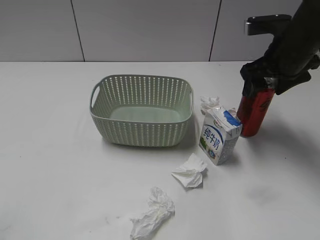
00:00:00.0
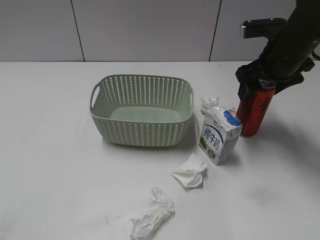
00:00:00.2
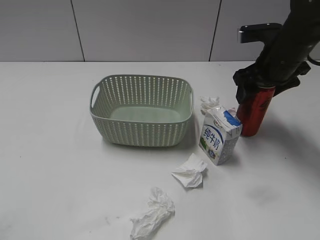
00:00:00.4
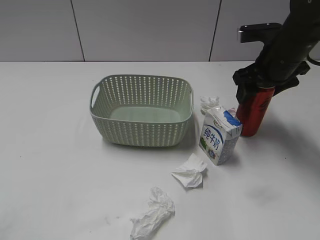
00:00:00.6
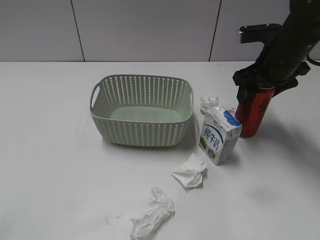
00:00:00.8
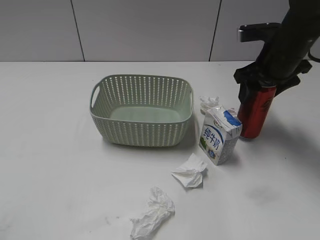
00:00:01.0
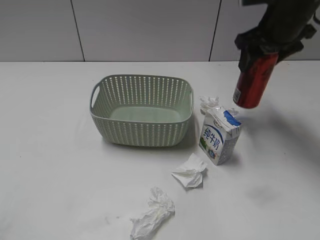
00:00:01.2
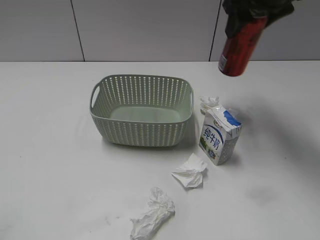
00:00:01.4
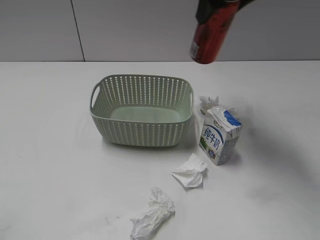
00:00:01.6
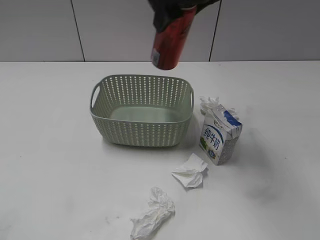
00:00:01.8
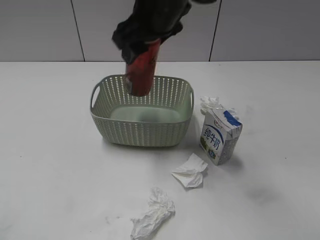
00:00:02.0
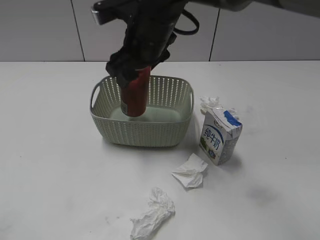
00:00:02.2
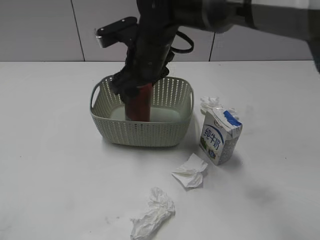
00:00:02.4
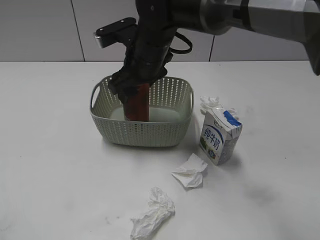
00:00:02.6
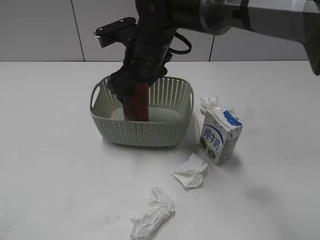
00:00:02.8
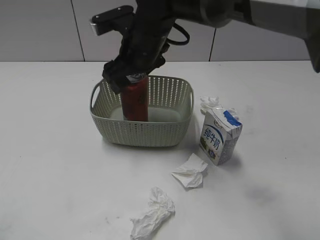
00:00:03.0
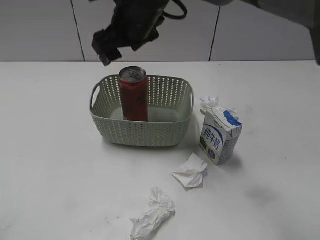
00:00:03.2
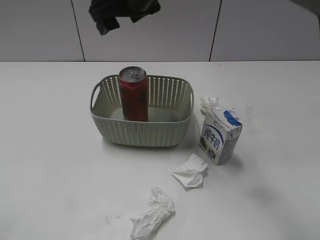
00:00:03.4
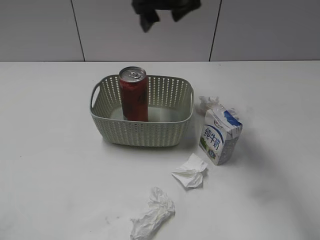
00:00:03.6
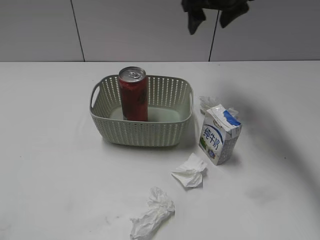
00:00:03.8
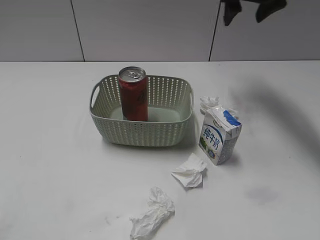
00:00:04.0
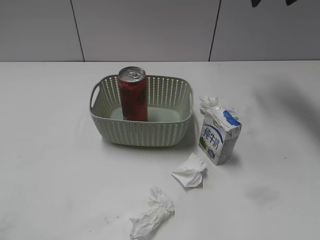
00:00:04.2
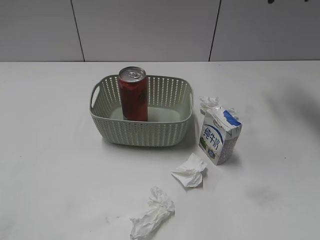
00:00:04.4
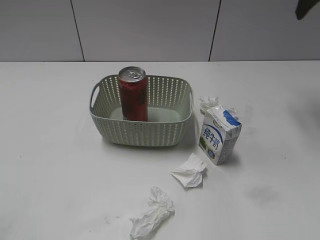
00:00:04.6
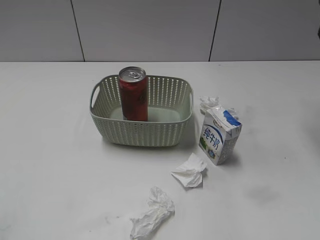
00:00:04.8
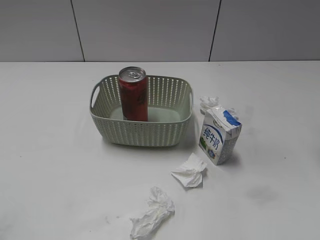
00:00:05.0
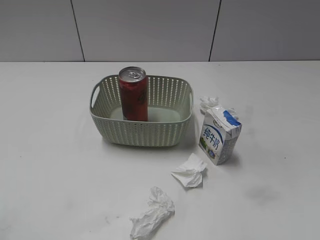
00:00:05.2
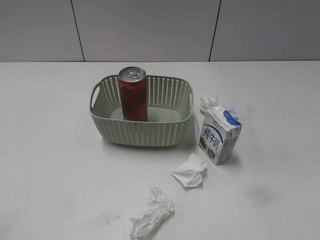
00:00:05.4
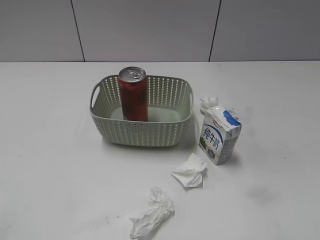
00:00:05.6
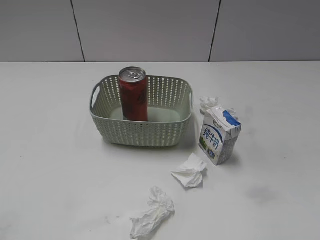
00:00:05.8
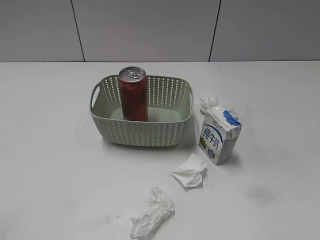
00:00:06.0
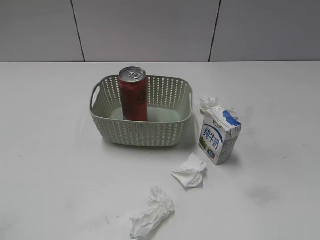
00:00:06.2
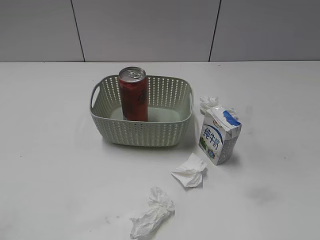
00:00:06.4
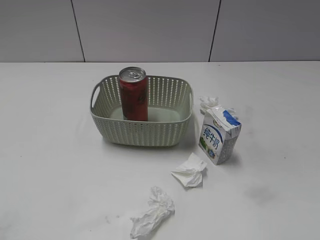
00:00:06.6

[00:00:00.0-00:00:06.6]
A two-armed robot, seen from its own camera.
Step, 00:00:00.8 to 00:00:03.2: Place the cola can in the basket with right gripper.
00:00:00.0 to 00:00:01.6: The right gripper moves upward and to the left, approximately 15 cm, and closes its fingers.
00:00:01.6 to 00:00:03.2: The right gripper travels to the left and downward by some 15 cm, and opens up.
00:00:03.2 to 00:00:05.0: The right gripper moves to the right, about 35 cm, and closes up.

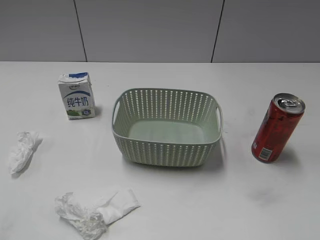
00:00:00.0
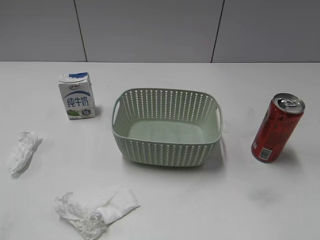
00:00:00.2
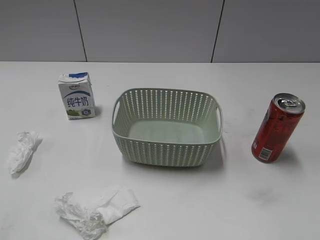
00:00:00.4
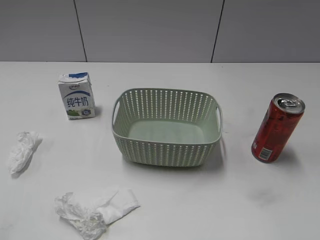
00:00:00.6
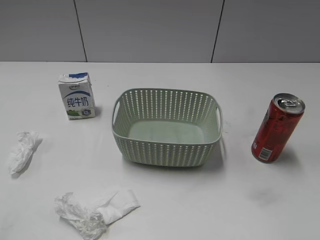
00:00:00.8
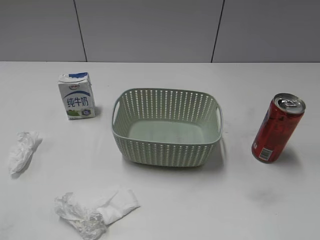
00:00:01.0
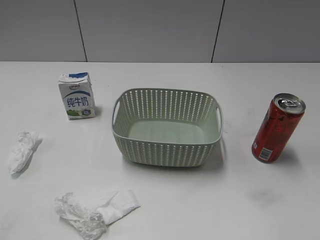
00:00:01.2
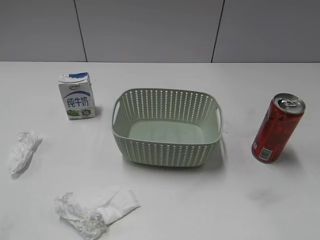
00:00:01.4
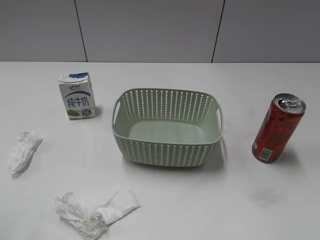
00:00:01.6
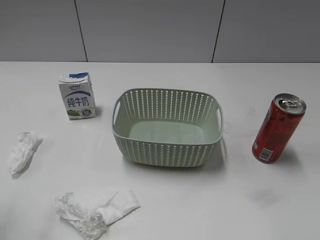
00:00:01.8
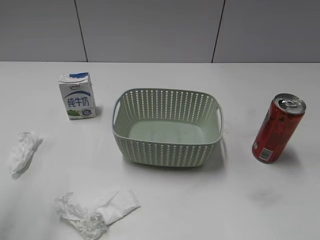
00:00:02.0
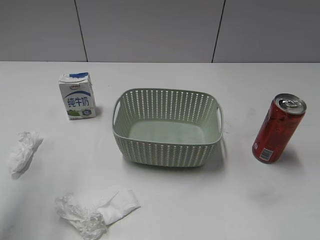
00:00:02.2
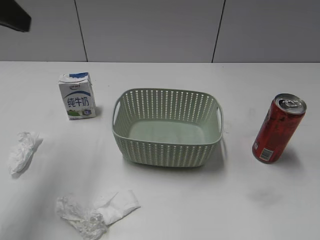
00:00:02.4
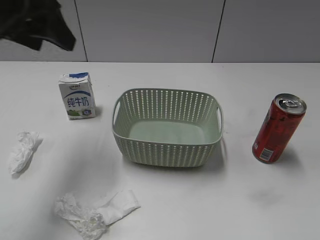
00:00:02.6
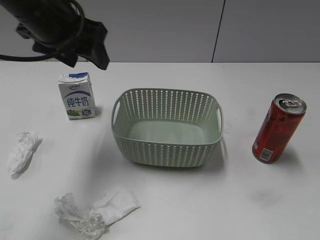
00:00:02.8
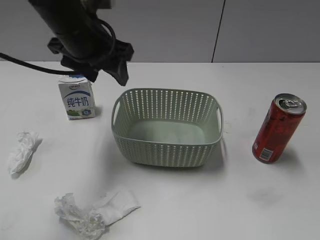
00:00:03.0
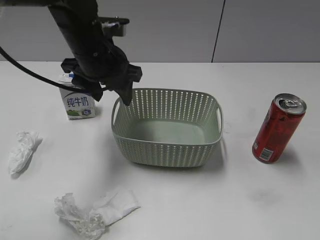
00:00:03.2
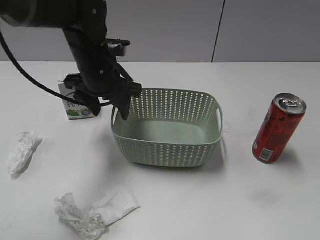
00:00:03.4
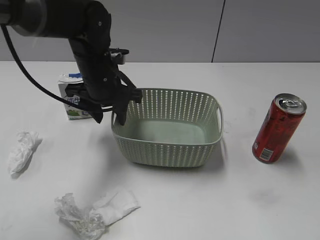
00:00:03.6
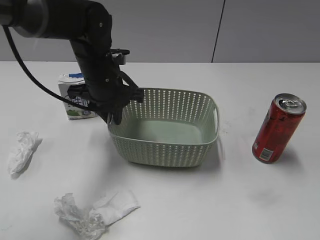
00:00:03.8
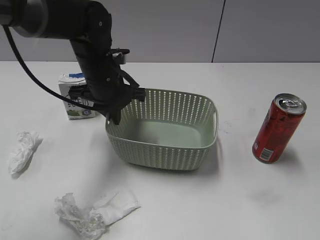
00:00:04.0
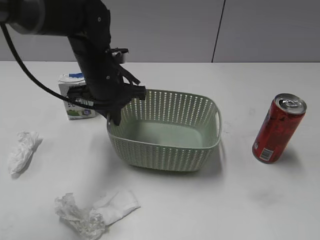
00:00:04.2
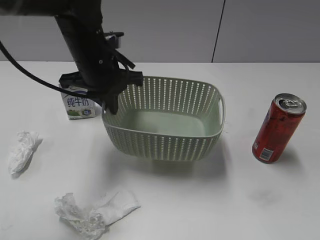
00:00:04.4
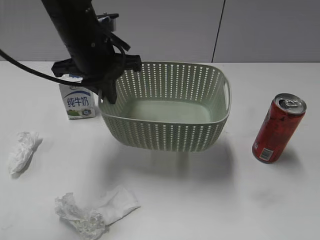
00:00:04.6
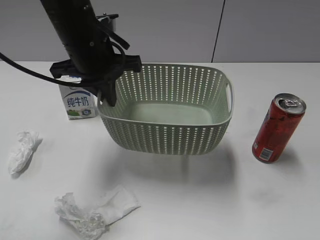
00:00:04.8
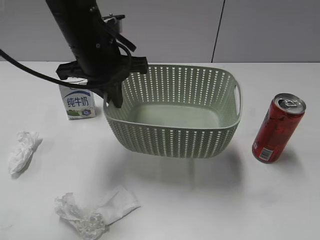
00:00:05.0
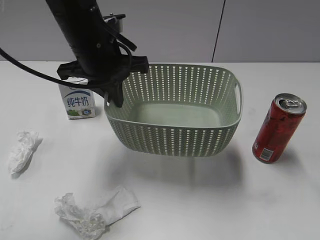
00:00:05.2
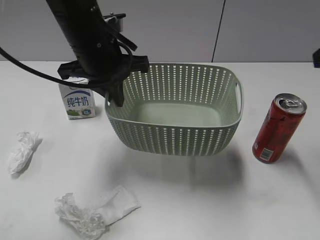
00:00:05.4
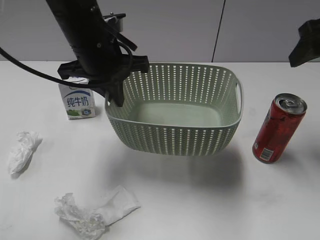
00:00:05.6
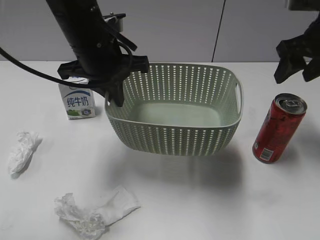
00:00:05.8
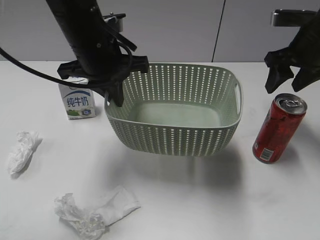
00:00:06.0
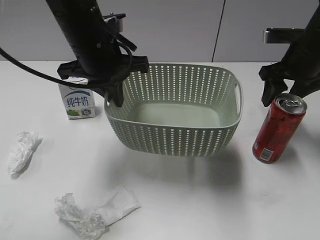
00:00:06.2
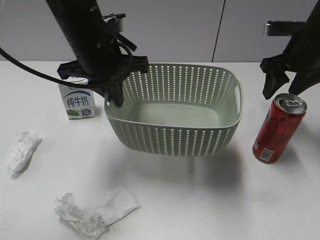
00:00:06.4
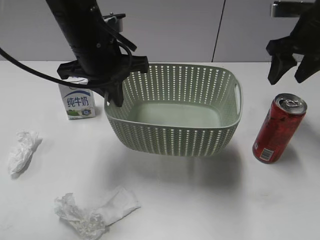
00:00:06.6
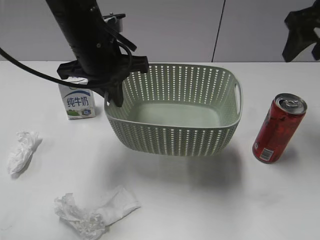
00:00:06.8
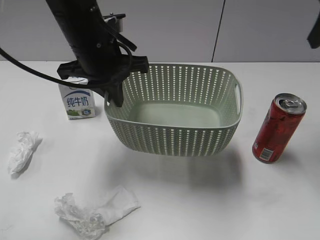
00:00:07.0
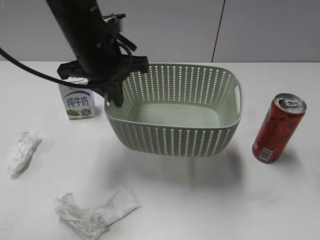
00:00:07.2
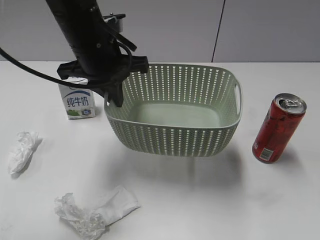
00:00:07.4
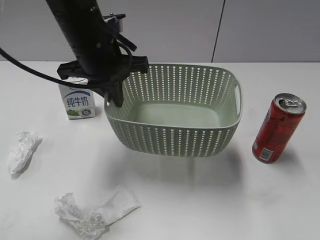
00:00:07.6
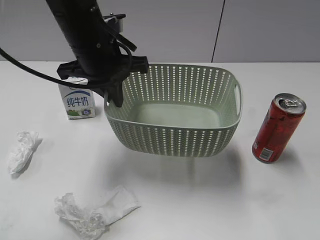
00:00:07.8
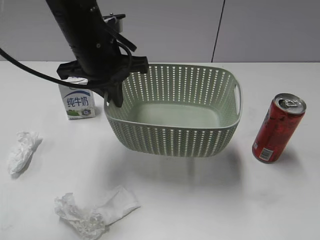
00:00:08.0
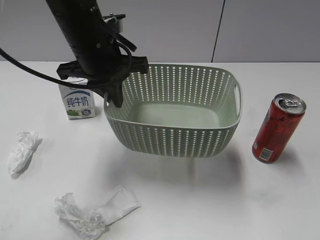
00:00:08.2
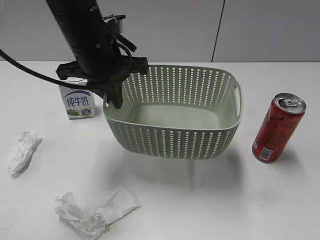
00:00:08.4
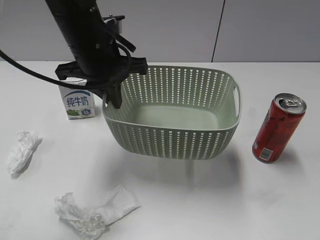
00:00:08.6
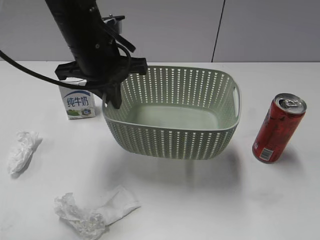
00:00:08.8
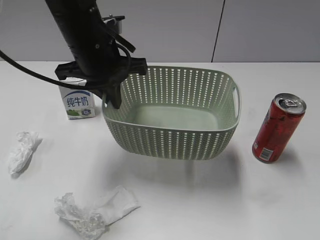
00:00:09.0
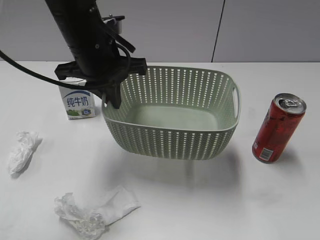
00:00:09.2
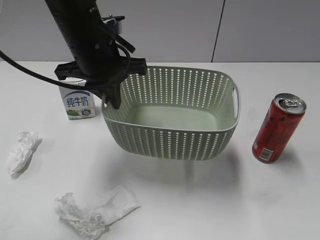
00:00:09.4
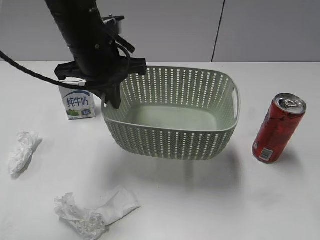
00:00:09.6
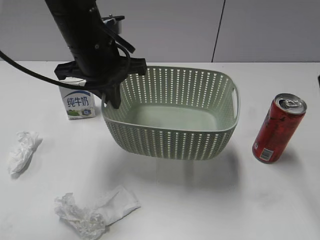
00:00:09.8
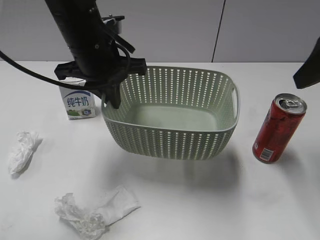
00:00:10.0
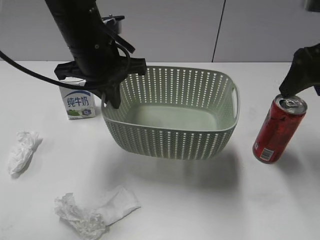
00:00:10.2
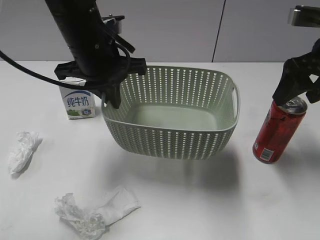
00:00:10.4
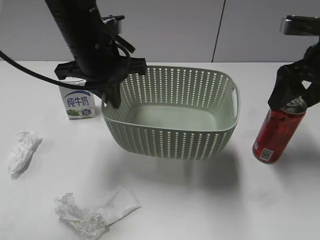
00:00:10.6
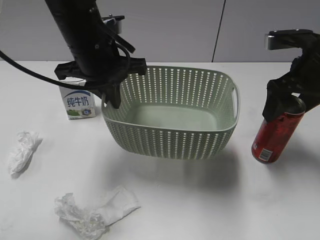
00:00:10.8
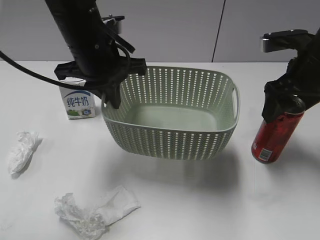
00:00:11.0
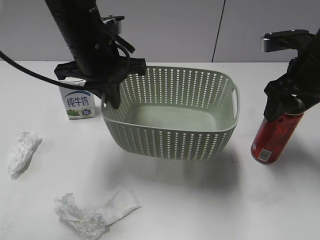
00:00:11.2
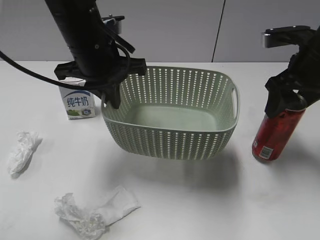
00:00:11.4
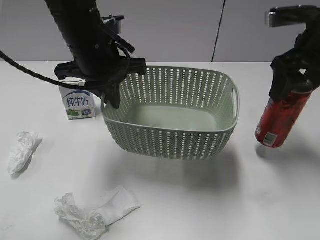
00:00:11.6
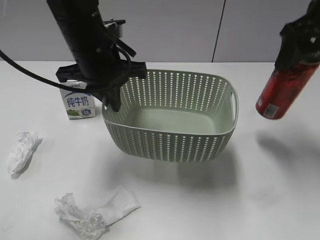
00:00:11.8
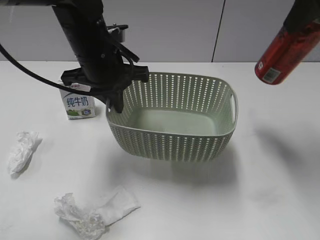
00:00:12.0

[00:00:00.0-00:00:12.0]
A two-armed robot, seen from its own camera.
Step, 00:00:02.4 to 00:00:04.0: Grasp the basket with left gripper.
Step, 00:00:04.2 to 00:00:05.2: Lift the basket with left gripper.
Step, 00:00:05.4 to 00:00:11.2: Grasp the cola can with right gripper.
00:00:01.6 to 00:00:03.0: The left gripper heads forward and to the right, covering roughly 35 cm.
00:00:03.0 to 00:00:04.4: The left gripper heads downward, covering some 5 cm, and closes.
00:00:04.4 to 00:00:06.0: The right gripper shifts some 40 cm forward, and closes up.
00:00:06.0 to 00:00:07.6: The right gripper travels backward by some 25 cm.
00:00:07.6 to 00:00:09.0: The right gripper shifts approximately 10 cm backward, and opens.
00:00:09.0 to 00:00:10.4: The right gripper heads forward, covering some 30 cm, and opens up.
00:00:10.4 to 00:00:12.0: The right gripper moves upward, some 10 cm, and closes its fingers.

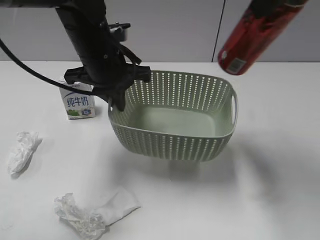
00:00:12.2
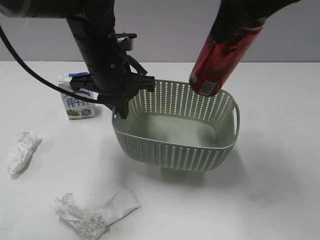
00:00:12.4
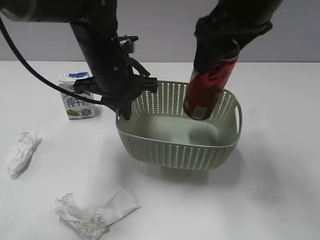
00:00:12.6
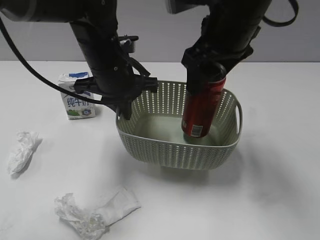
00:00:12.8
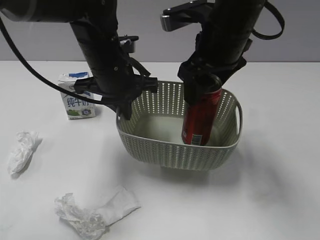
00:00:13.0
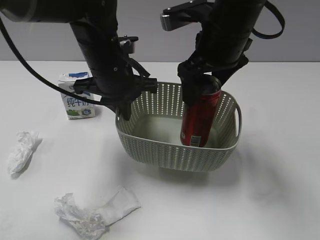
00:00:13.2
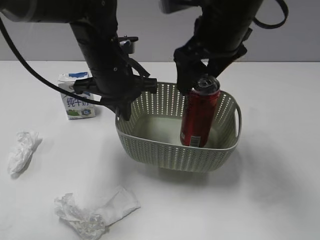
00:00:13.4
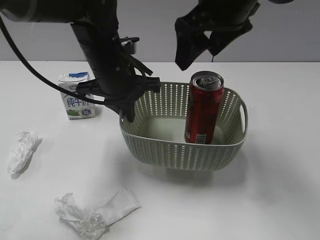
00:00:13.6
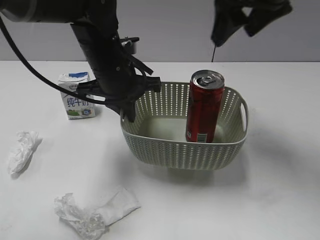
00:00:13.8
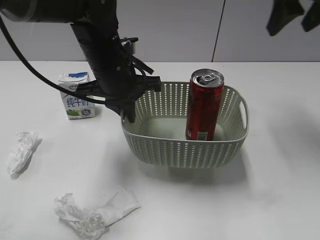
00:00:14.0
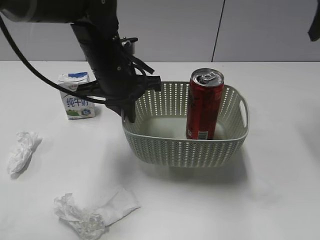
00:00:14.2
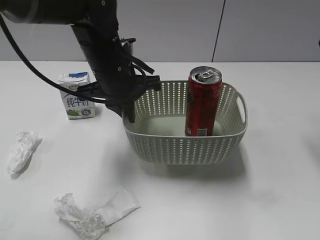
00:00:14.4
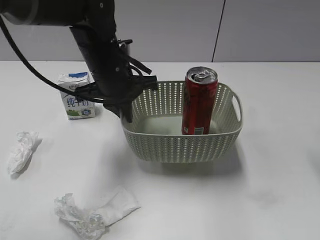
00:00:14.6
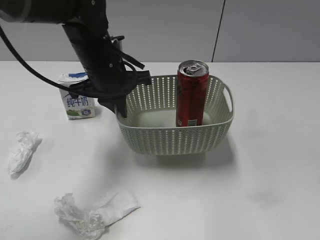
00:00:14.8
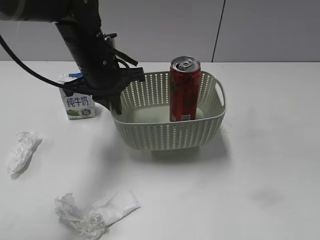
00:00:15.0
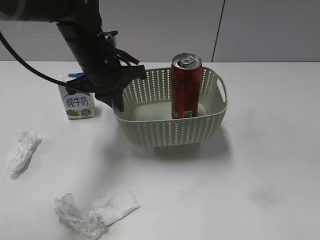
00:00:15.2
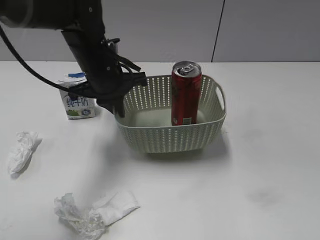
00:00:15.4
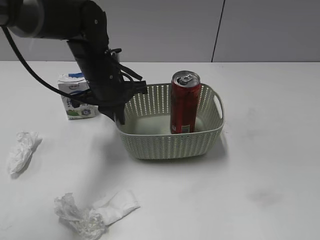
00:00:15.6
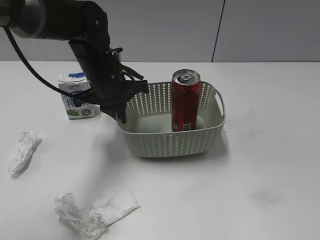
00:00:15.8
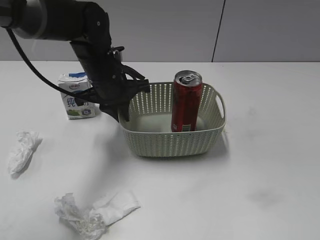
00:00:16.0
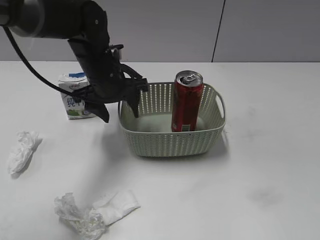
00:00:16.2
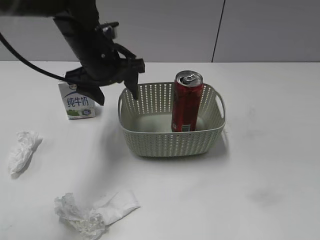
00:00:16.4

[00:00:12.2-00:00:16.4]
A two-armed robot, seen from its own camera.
Step, 00:00:12.2 to 00:00:13.4: Place the cola can in the basket with right gripper.
00:00:12.2 to 00:00:13.6: The right gripper heads to the left and downward, covering about 10 cm, and opens.
00:00:13.6 to 00:00:15.0: The right gripper is displaced to the right and backward by roughly 25 cm.
00:00:15.0 to 00:00:16.4: The left gripper opens, while the right gripper is displaced backward by about 15 cm.
